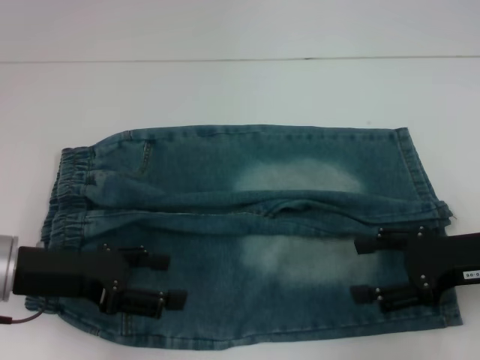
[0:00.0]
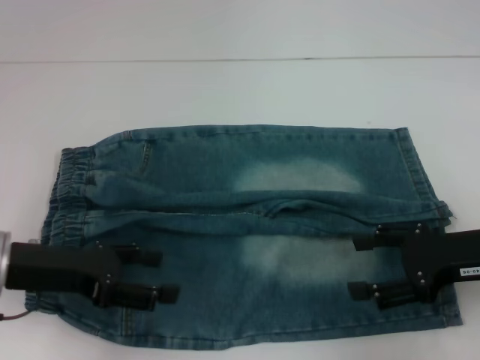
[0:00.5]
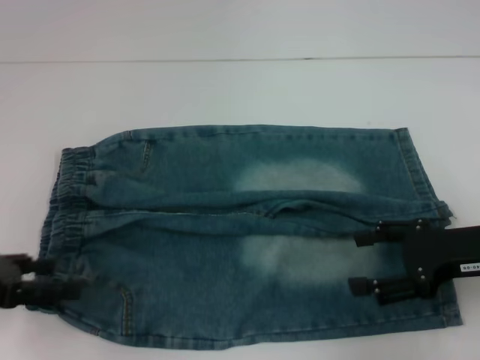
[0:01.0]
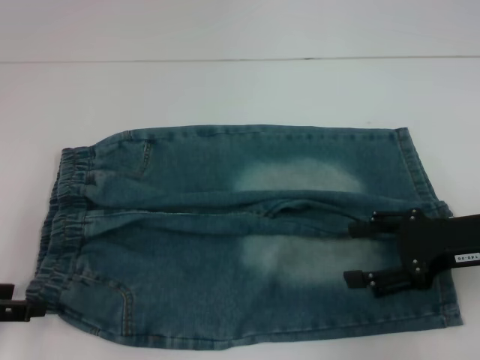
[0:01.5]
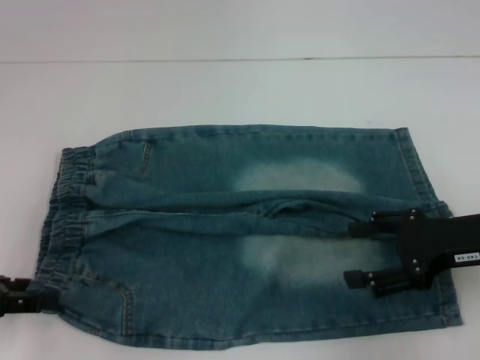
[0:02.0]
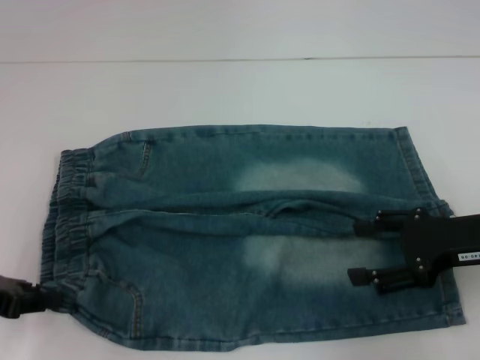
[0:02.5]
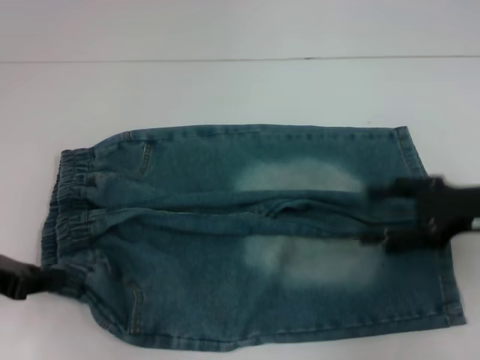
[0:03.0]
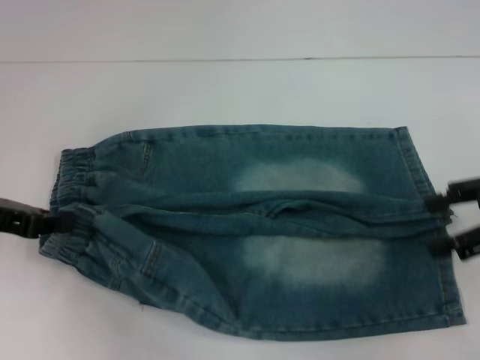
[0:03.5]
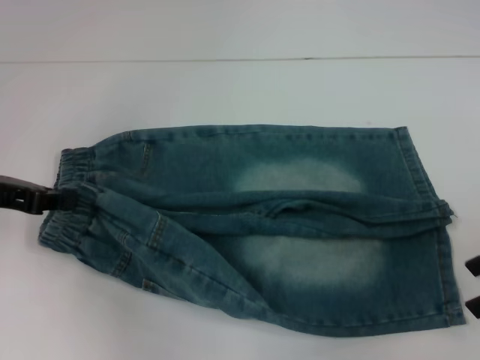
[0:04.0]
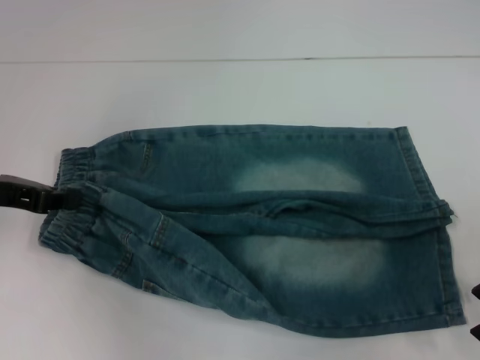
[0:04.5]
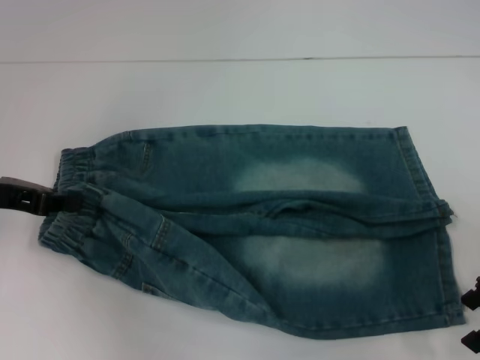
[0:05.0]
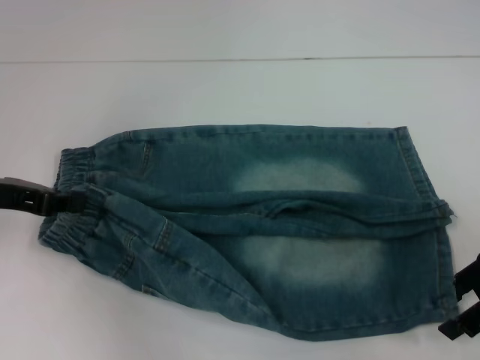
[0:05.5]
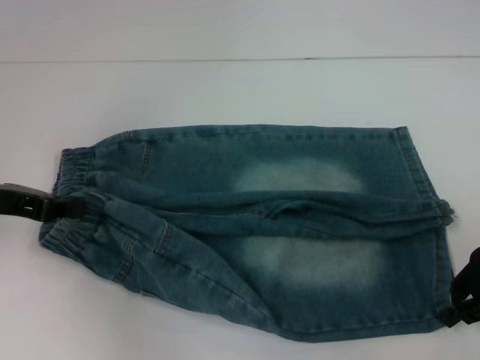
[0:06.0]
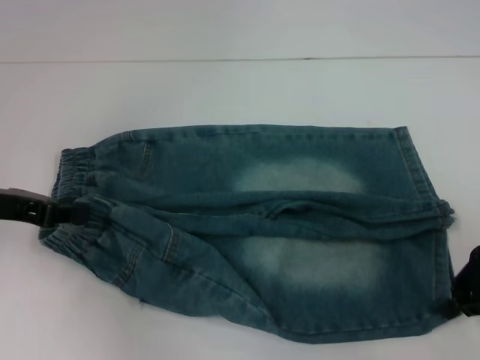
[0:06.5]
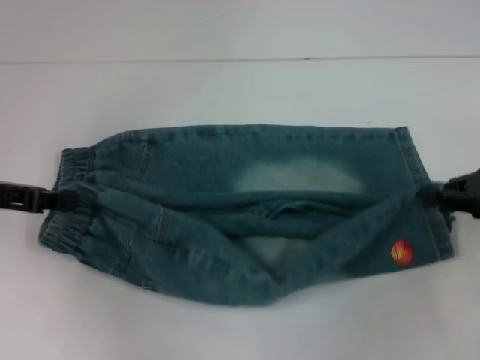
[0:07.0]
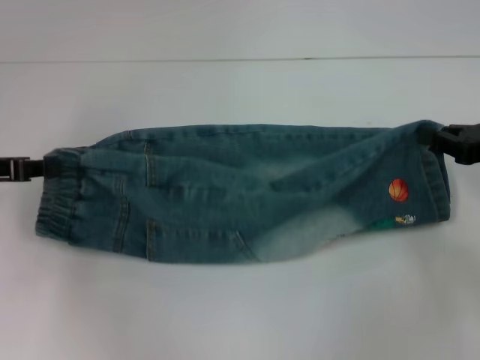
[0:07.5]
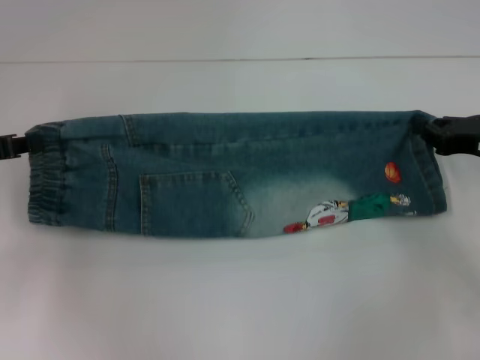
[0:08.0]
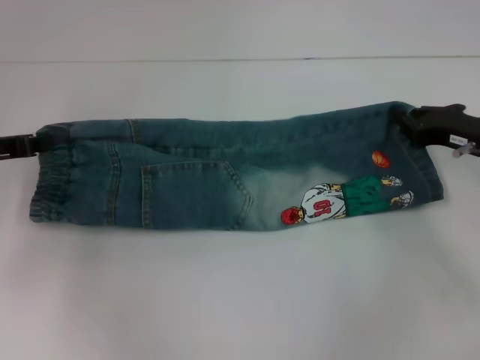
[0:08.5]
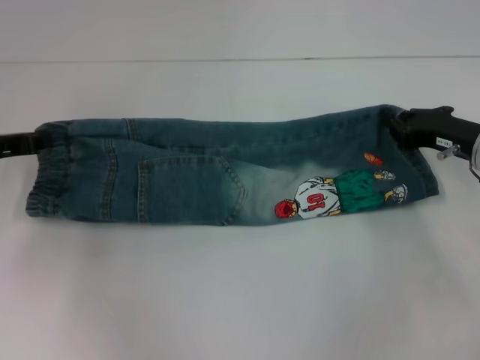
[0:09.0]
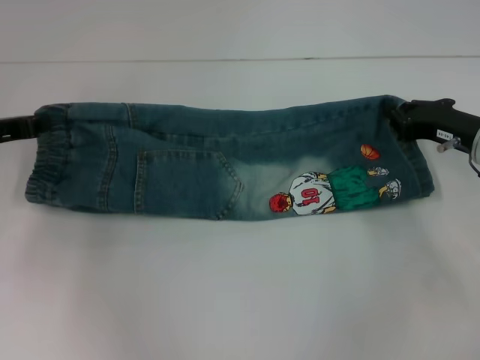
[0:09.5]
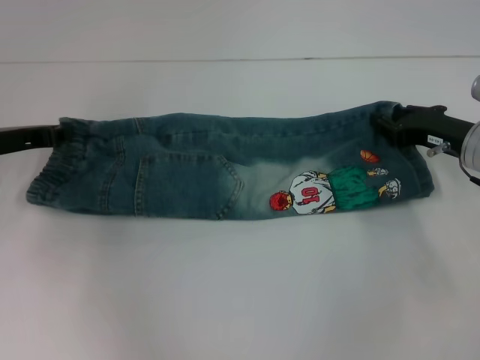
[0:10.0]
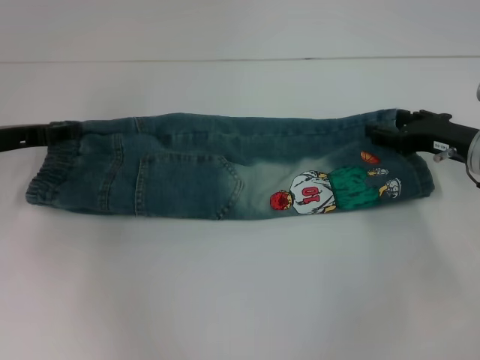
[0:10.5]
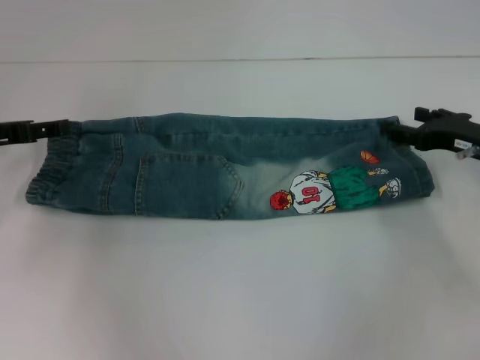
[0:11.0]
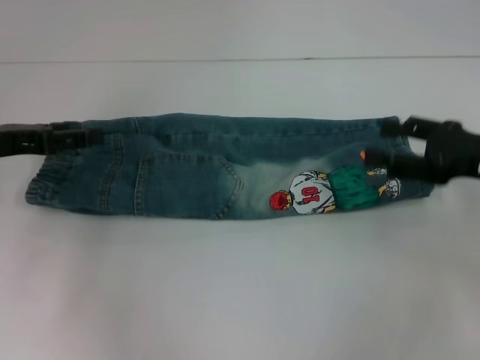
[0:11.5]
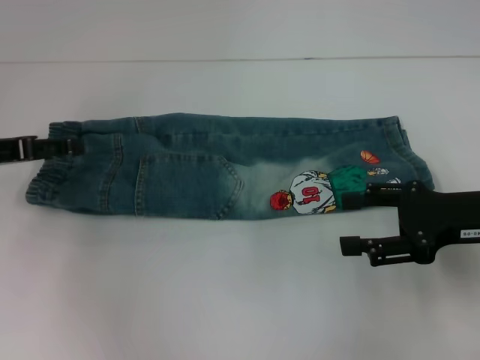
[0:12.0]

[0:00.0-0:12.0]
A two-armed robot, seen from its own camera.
Step, 0:00.0 to 0:02.5: Hold the lower left waistband with your left hand.
Step, 0:03.0 to 0:06.0: Grab the lower right pant leg with your right hand.
Step, 0:06.5 to 0:11.0: Fold upward with your right hand.
0:00.0 to 0:02.0: The left gripper goes roughly 10 cm to the left.
0:02.0 to 0:04.0: The right gripper heads to the right and upward, covering approximately 10 cm, while the left gripper goes some 10 cm forward, and closes.
0:04.0 to 0:06.0: The right gripper changes place by roughly 5 cm, and closes.
0:06.0 to 0:08.0: The right gripper moves approximately 5 cm, and closes up.
0:08.0 to 0:10.0: The right gripper is displaced to the left by some 5 cm. Meanwhile the left gripper moves some 5 cm.
0:10.0 to 0:12.0: The right gripper moves backward, some 10 cm, and opens up. The left gripper shifts by roughly 5 cm, and opens.

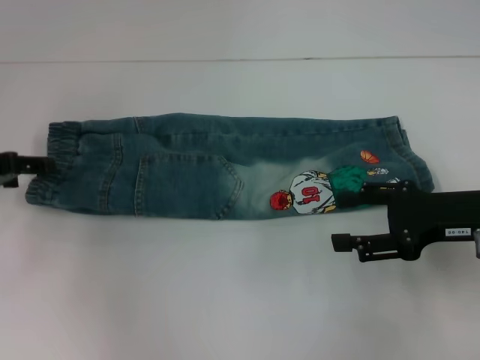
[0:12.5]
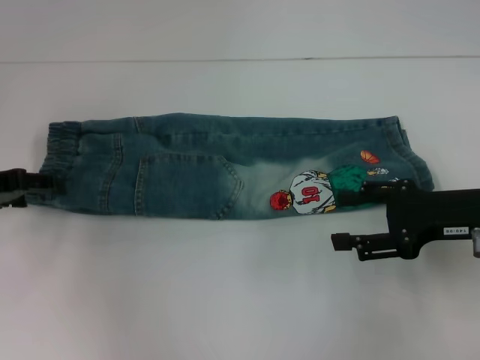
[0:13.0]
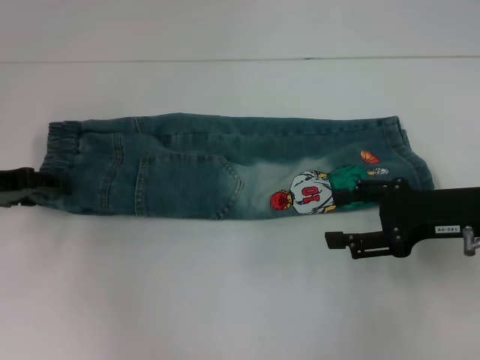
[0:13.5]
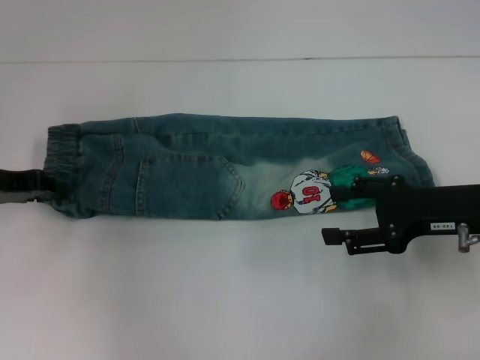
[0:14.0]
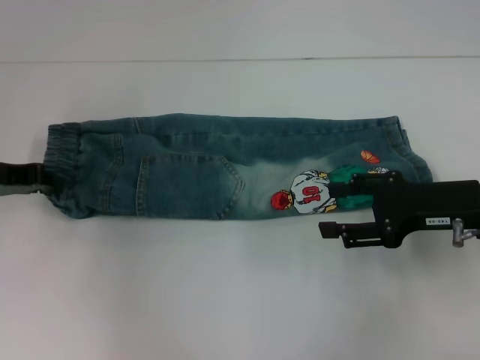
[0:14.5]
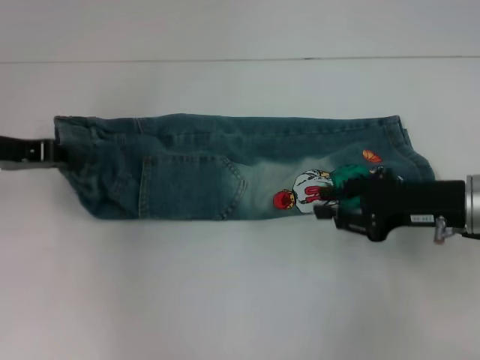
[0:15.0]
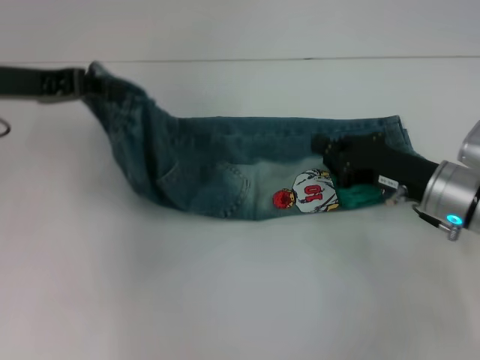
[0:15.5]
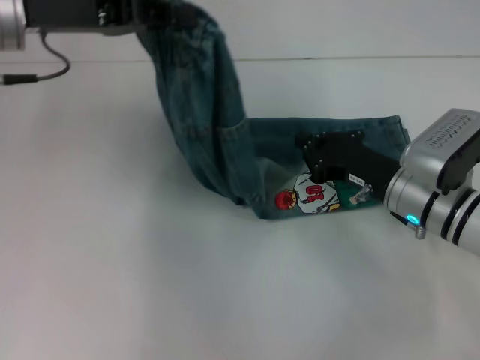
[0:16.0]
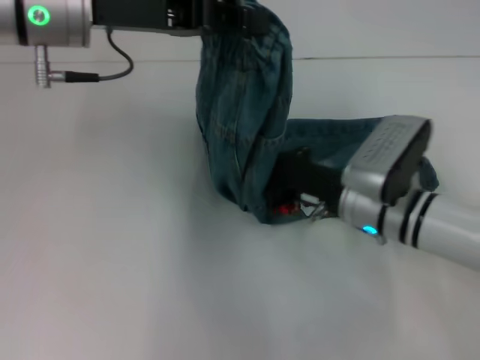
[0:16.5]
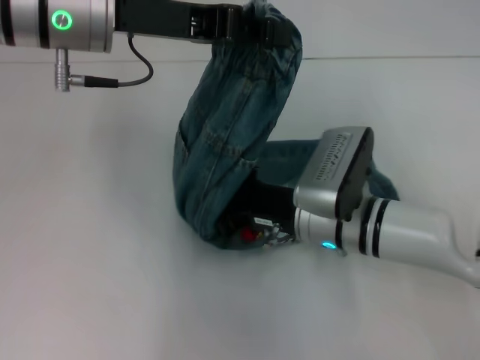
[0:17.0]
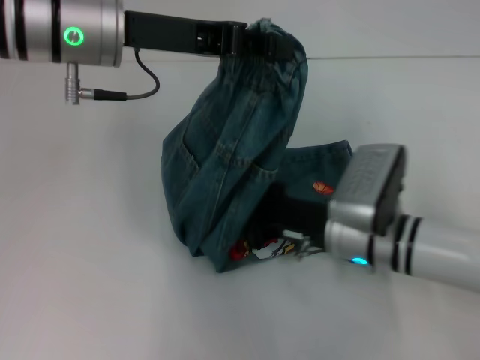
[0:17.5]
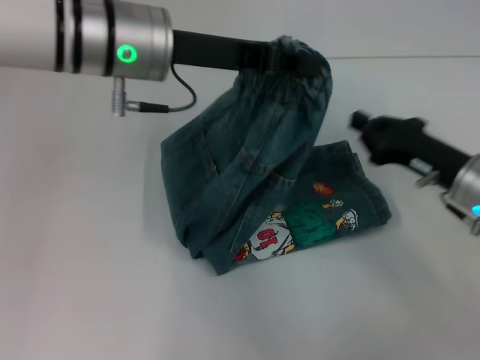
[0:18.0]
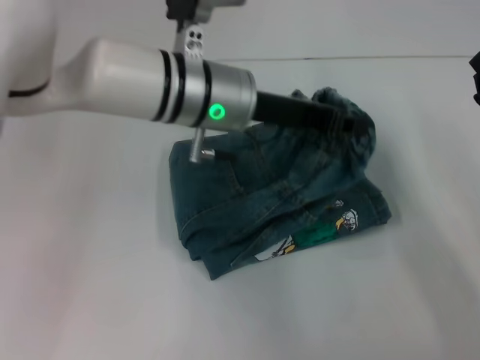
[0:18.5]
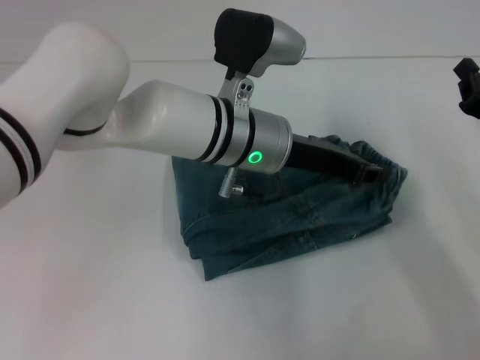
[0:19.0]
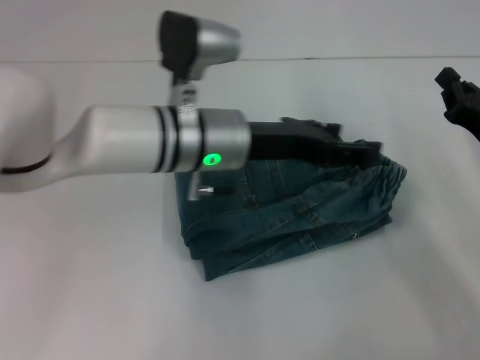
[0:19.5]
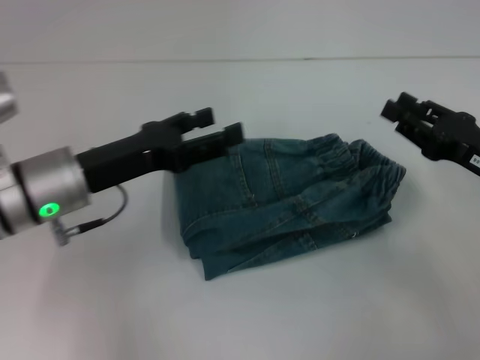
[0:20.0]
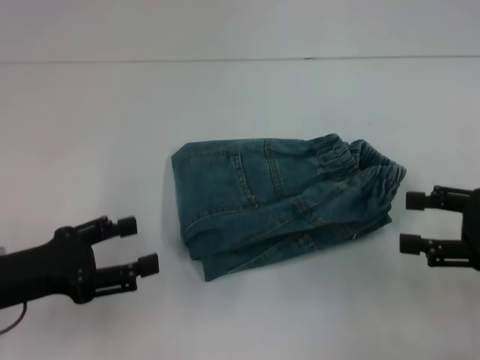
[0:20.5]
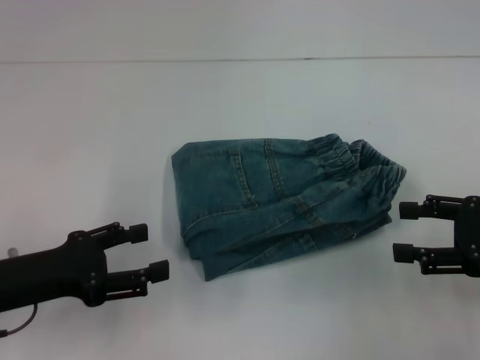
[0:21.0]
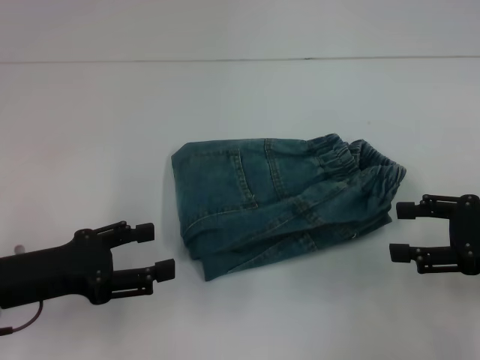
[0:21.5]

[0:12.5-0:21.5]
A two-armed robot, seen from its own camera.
Step, 0:12.5 to 0:14.5: Hold the waistband with your left hand.
Step, 0:15.0 to 0:17.5: Press the middle of the pants with your right hand.
Step, 0:18.0 to 0:19.5: Fold to the right with your left hand.
0:12.5 to 0:14.5: The left gripper closes up.
0:14.5 to 0:17.0: The right gripper heads to the left, covering approximately 15 cm, and closes. Meanwhile the left gripper heads to the right and upward, covering some 20 cm.
0:17.0 to 0:19.5: The left gripper shifts roughly 15 cm downward and to the right, and opens up, while the right gripper goes some 20 cm to the right.
0:19.5 to 0:21.5: The left gripper is displaced to the left and backward by roughly 25 cm, while the right gripper ends up roughly 5 cm from where it was, and opens up.
